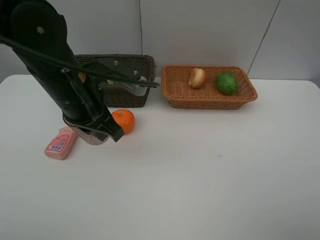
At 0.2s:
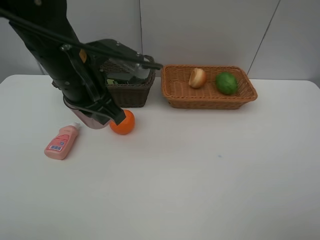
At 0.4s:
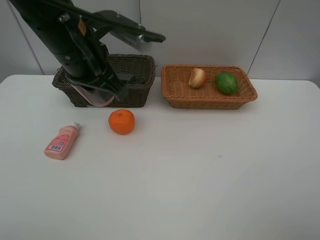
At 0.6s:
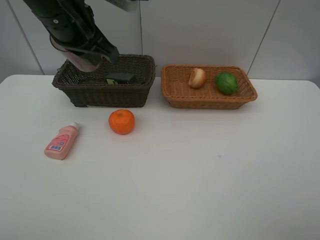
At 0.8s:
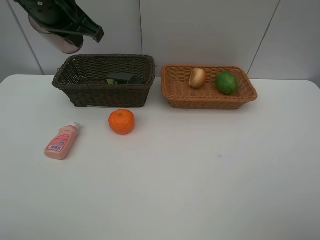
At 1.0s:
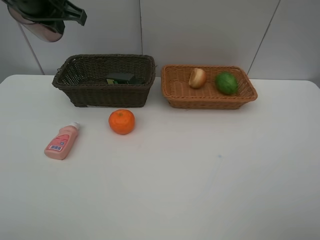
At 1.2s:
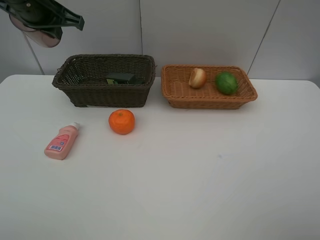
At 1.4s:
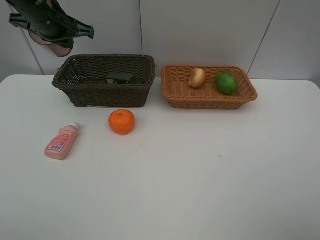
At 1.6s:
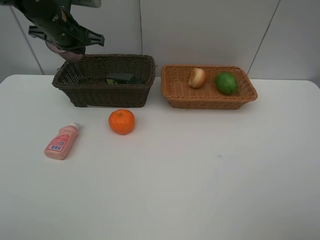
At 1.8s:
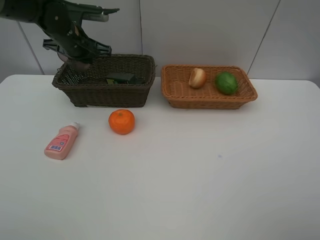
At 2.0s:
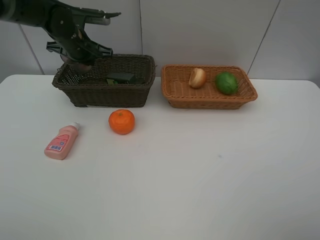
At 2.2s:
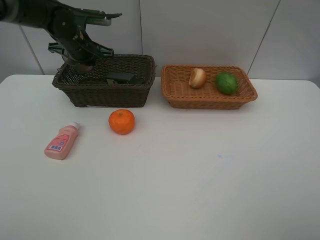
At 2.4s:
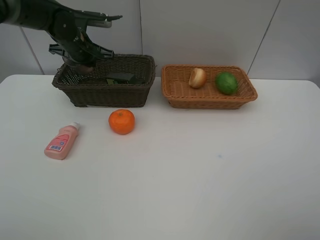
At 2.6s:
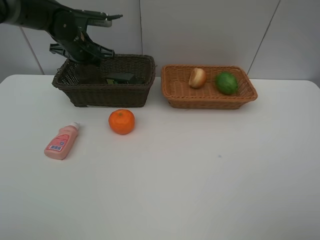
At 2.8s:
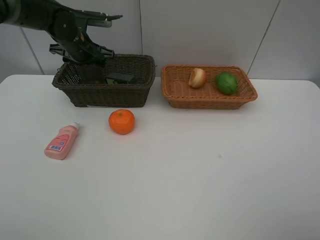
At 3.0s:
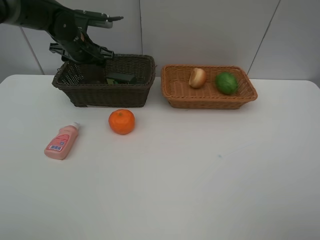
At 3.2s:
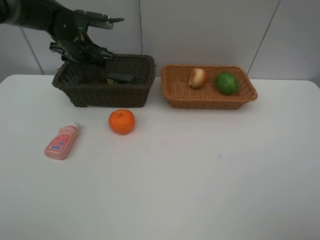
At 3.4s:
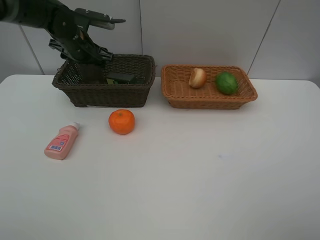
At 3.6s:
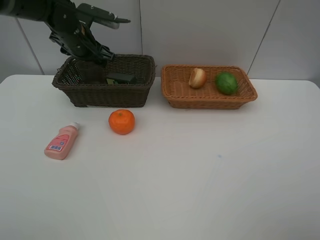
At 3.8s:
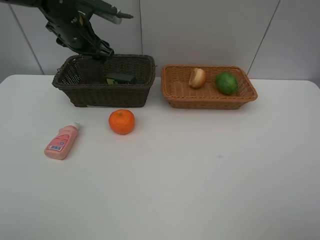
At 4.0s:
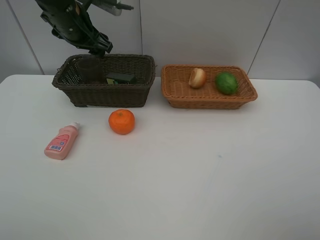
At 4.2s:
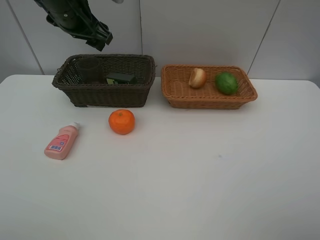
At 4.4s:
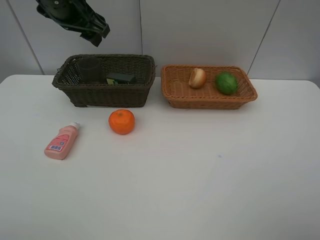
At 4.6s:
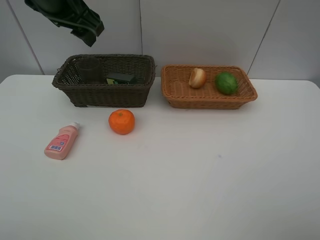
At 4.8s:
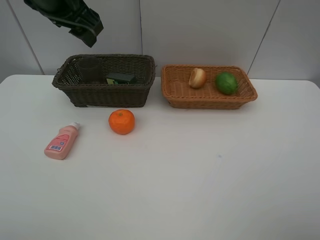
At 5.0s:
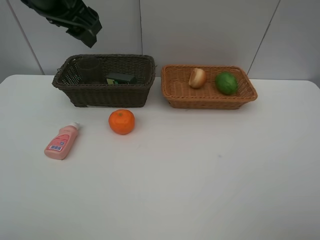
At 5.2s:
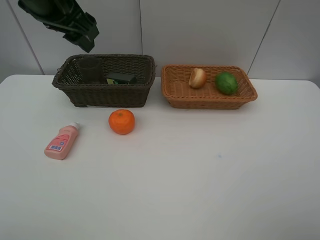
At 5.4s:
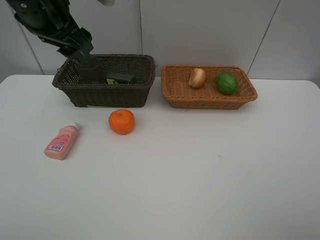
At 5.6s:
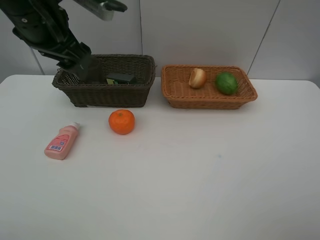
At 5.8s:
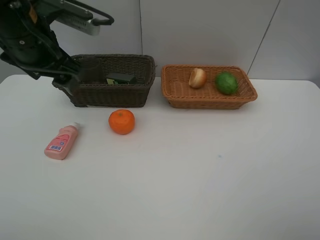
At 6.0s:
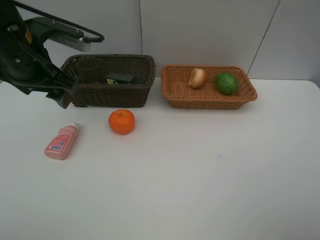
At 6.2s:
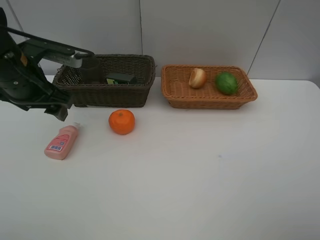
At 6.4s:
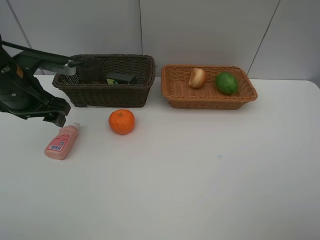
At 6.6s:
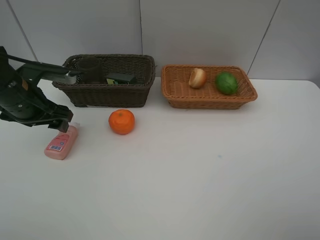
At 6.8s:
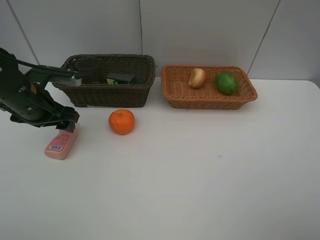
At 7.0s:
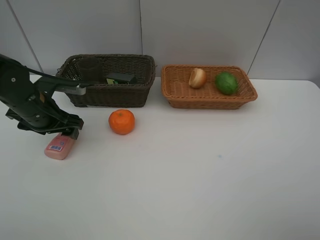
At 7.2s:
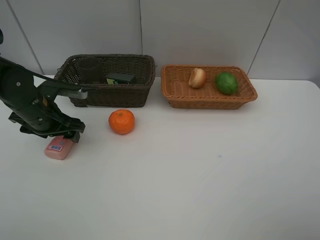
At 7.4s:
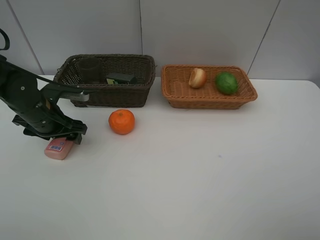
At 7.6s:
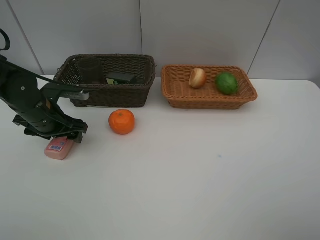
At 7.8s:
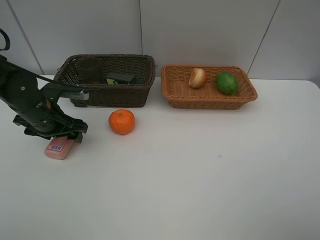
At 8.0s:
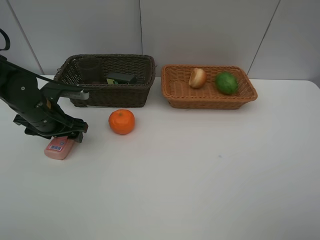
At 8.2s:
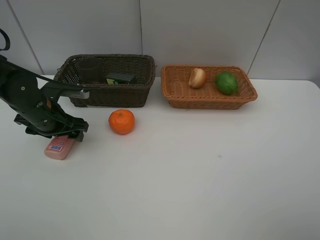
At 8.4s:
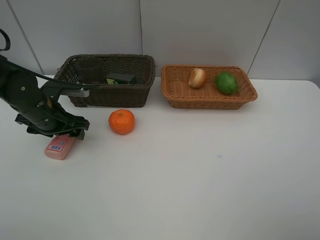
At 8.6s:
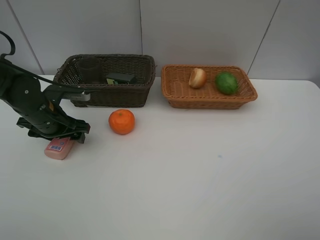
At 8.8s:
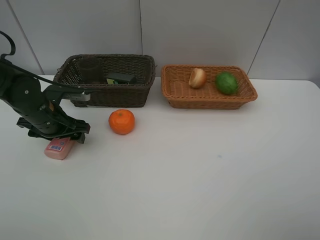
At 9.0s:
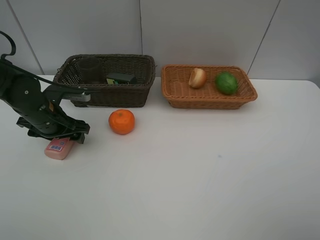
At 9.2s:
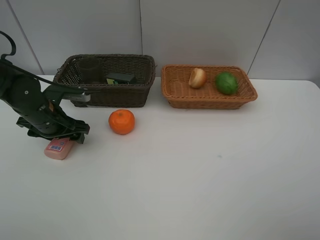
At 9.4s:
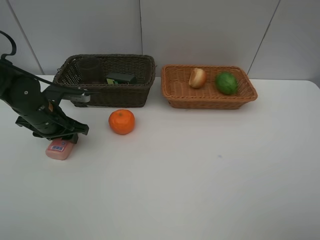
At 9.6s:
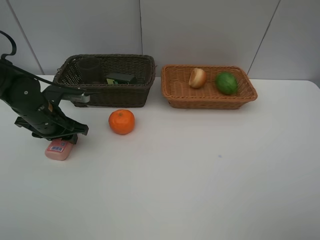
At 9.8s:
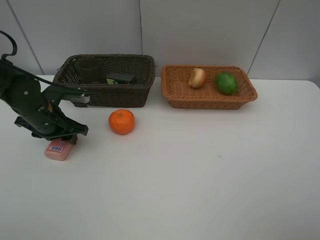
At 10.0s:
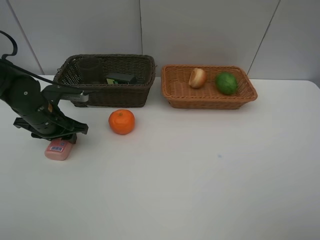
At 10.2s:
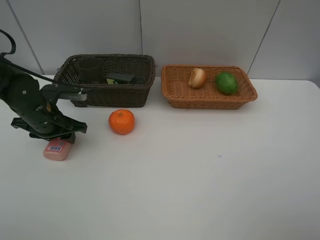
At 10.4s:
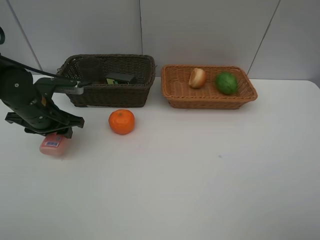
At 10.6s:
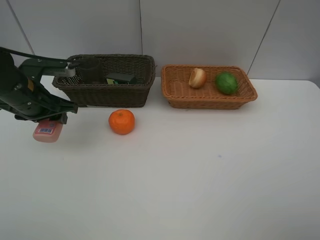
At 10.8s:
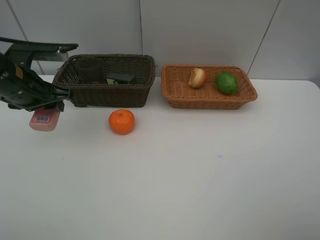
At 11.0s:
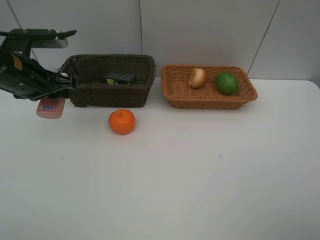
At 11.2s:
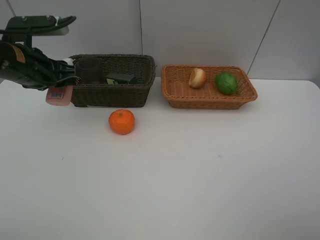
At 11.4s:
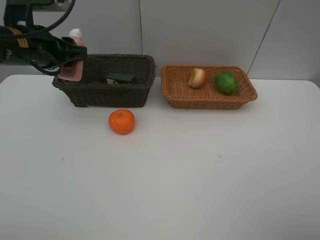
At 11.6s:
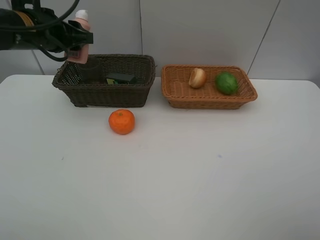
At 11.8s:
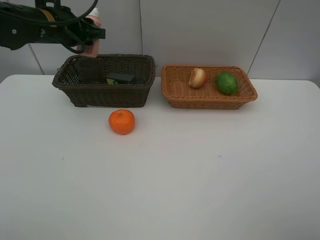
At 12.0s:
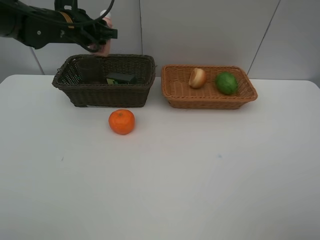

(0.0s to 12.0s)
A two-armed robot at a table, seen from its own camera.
Task of the whole recording: place multiple objects separately in different baskets.
0.0s - 1.6s: The left gripper travels forward and to the left by roughly 20 cm.
1.6s - 3.0s: The left gripper moves about 5 cm, and opens its fingers.
3.0s - 4.4s: The left gripper moves upward and backward, some 15 cm.
4.4s - 6.0s: The left gripper moves downward, backward and to the left, about 10 cm.
6.0s - 7.6s: The left gripper is displaced downward by about 15 cm.
7.6s - 9.0s: Neither gripper changes place.
9.0s - 10.4s: The left gripper closes up.
10.4s - 12.0s: The left gripper moves forward, upward and to the right, roughly 15 cm.

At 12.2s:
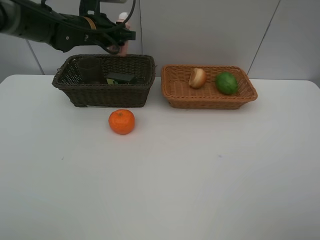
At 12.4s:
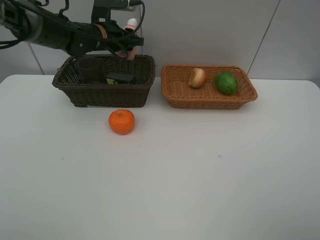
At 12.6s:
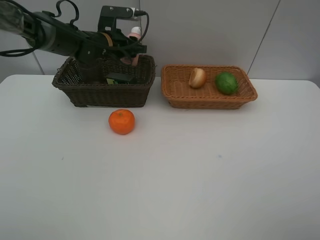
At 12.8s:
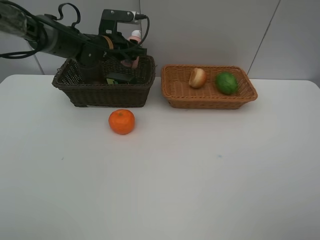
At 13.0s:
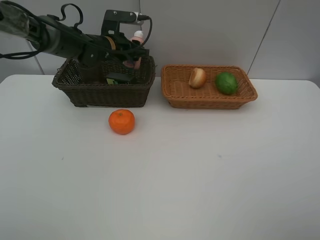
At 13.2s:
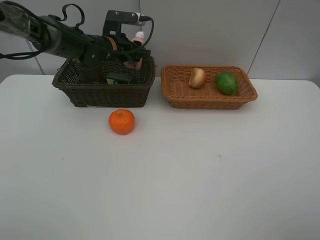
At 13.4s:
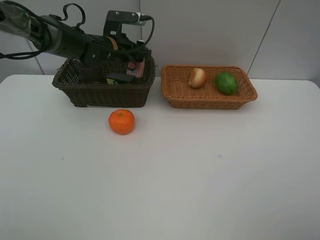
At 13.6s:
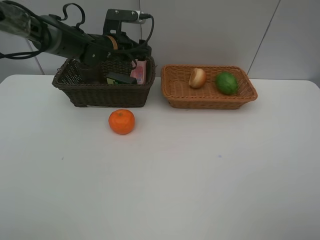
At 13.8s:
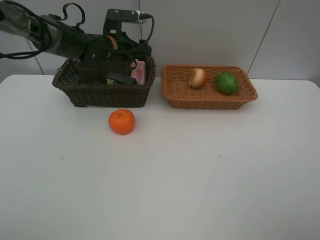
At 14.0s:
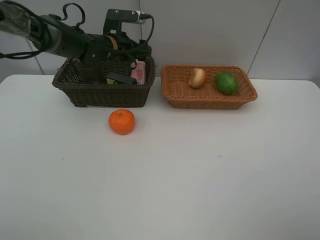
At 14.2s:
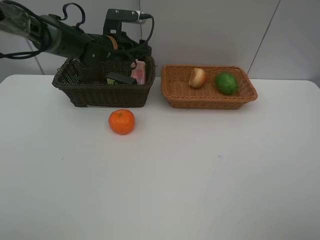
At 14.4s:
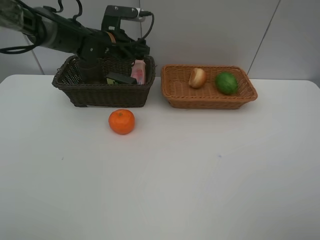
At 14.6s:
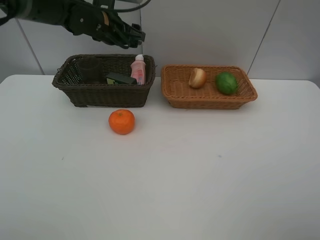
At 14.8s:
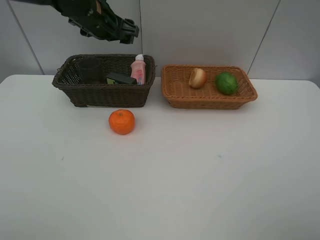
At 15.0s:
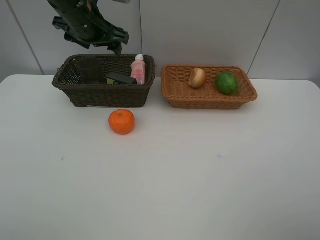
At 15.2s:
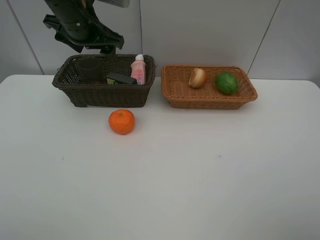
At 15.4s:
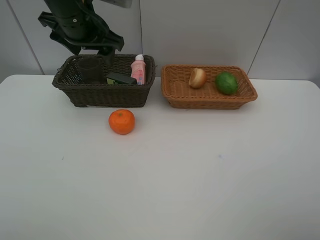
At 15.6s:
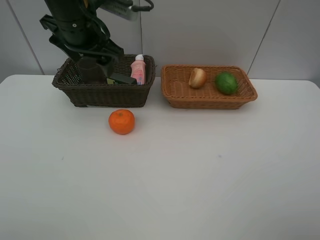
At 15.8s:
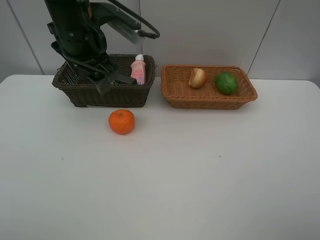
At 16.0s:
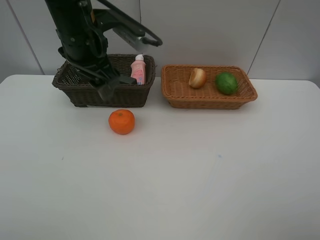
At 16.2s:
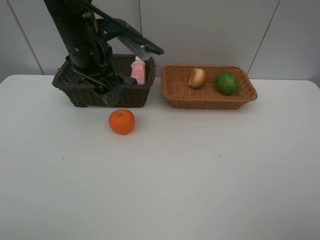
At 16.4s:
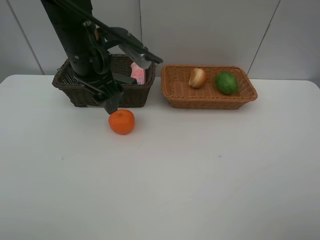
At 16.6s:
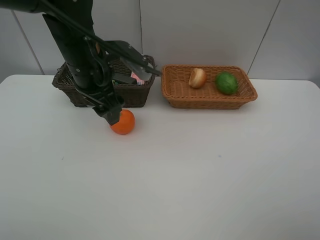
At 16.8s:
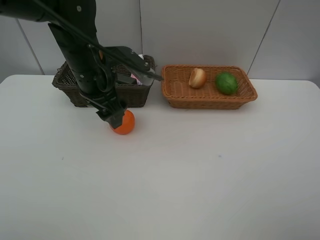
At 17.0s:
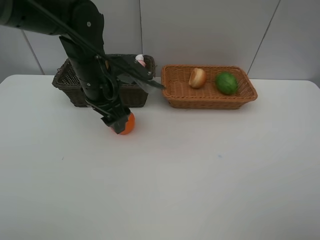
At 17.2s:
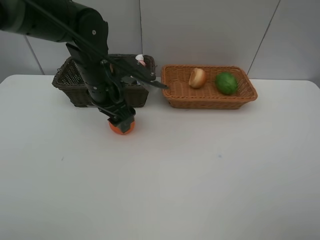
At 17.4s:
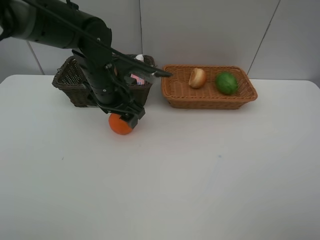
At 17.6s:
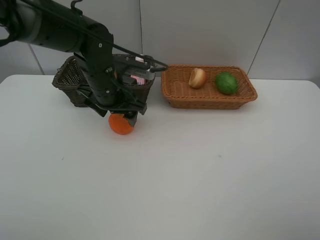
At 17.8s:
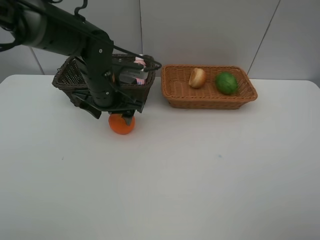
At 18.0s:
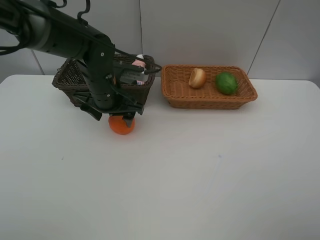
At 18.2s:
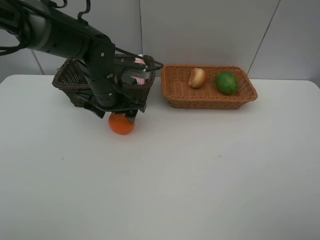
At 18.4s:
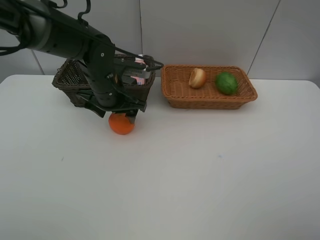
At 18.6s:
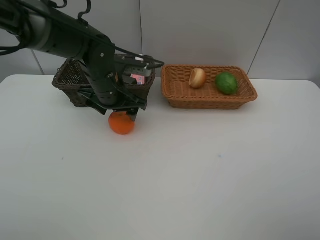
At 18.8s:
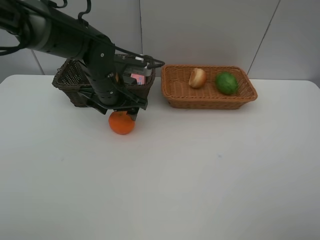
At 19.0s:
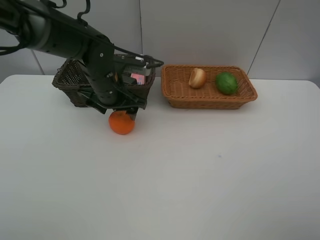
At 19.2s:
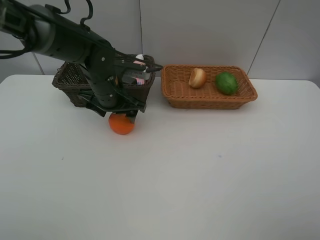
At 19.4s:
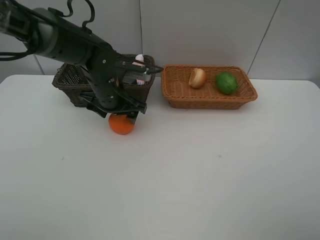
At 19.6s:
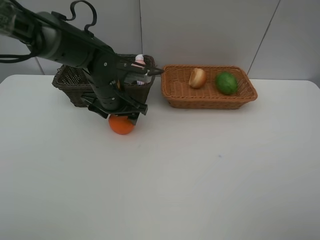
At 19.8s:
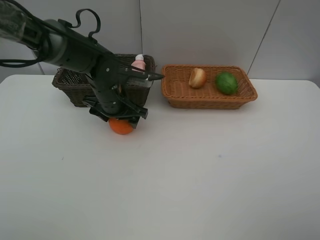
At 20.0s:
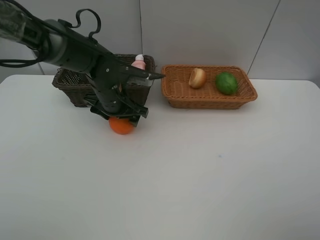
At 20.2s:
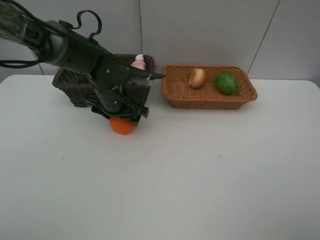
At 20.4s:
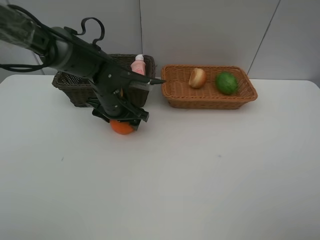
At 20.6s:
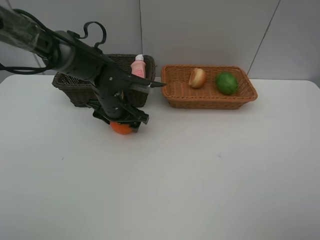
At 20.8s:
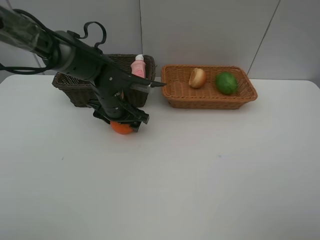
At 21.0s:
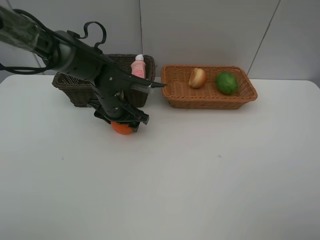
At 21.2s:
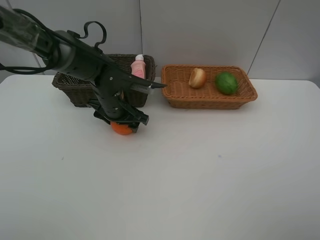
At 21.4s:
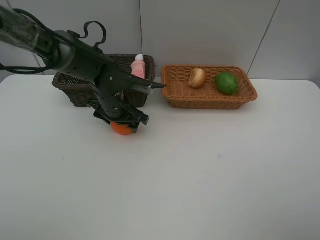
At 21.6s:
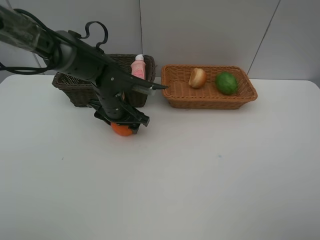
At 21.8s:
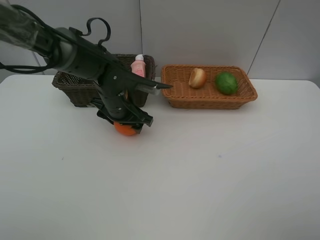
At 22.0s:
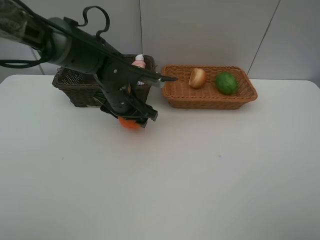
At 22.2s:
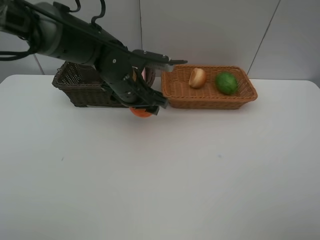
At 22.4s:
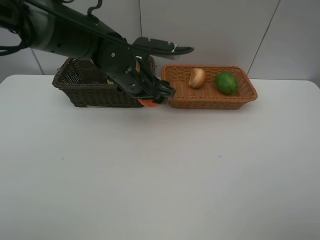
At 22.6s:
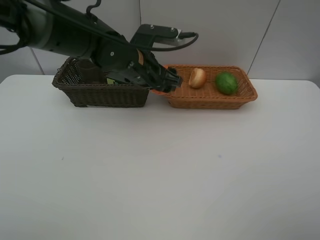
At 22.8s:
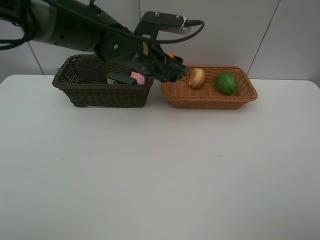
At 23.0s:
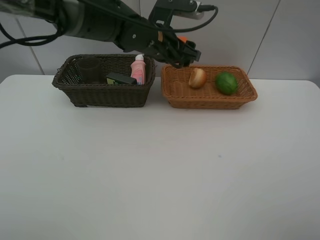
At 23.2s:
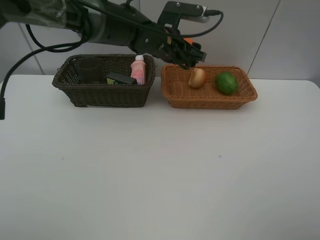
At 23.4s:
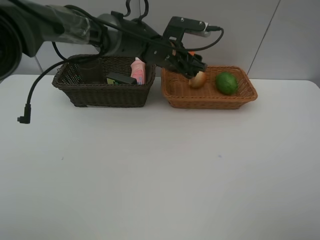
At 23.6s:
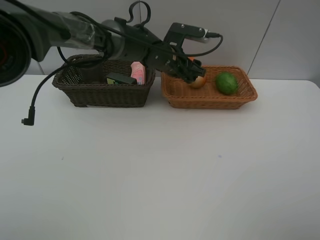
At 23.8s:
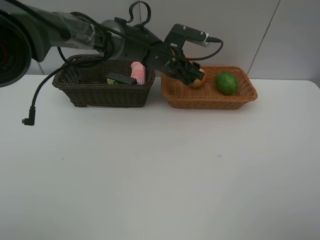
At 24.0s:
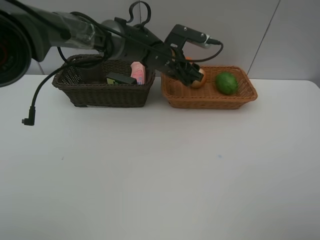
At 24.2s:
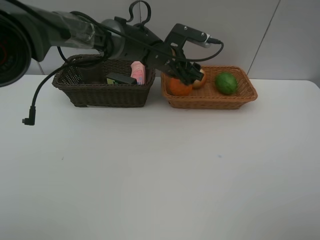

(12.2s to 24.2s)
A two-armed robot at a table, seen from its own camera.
Task of the whole recording: place multiple objects separately in different baskets.
12.2s - 13.8s: The left gripper shifts by approximately 5 cm, and opens.
13.8s - 15.2s: The left gripper shifts approximately 15 cm upward and backward.
15.2s - 16.6s: The left gripper is displaced backward and downward by roughly 10 cm.
16.6s - 18.2s: The left gripper is displaced downward by about 5 cm.
18.2s - 21.2s: There are only small adjustments of the grippers.
21.2s - 22.6s: The left gripper goes about 10 cm upward and to the right.
22.6s - 24.2s: The left gripper heads forward and to the right, covering about 10 cm.
